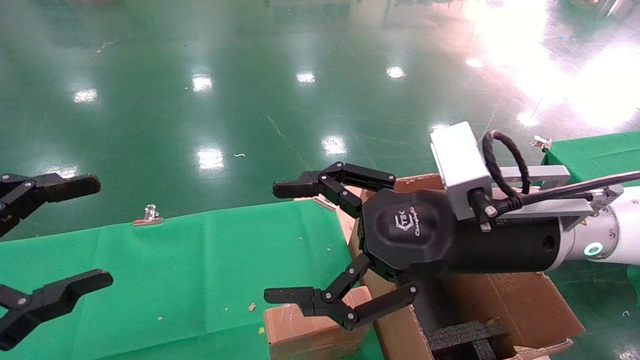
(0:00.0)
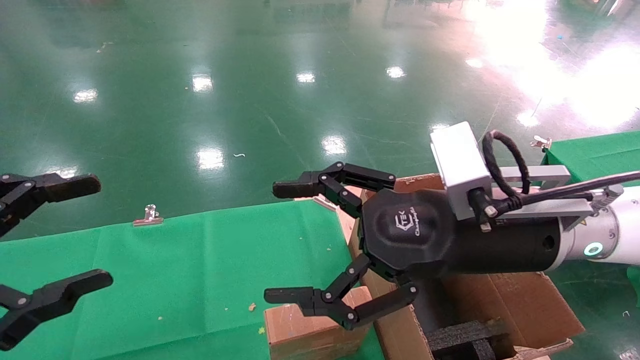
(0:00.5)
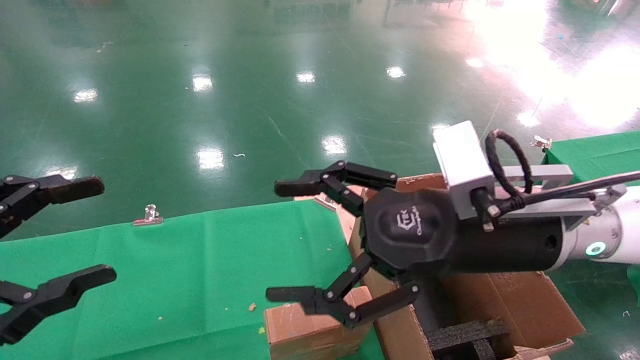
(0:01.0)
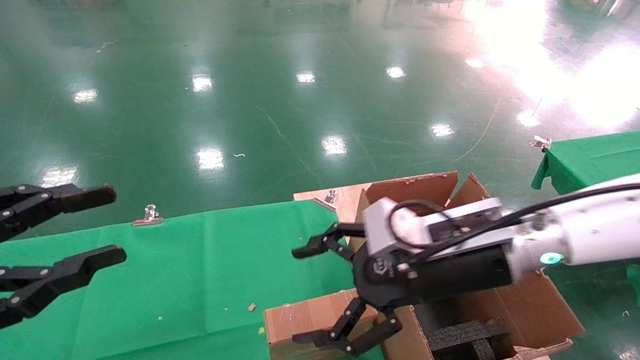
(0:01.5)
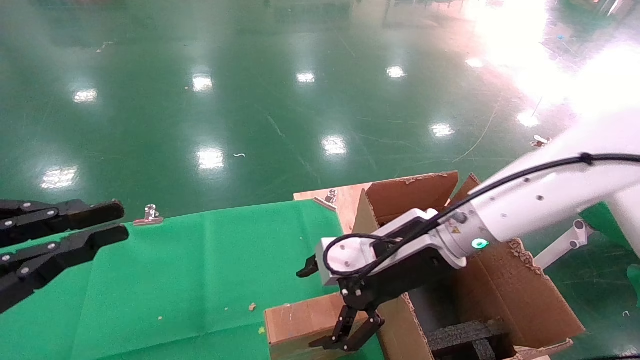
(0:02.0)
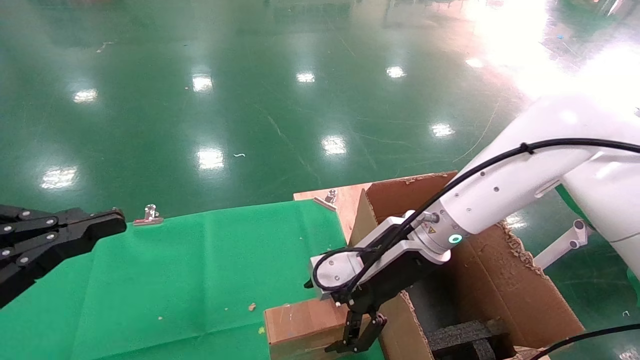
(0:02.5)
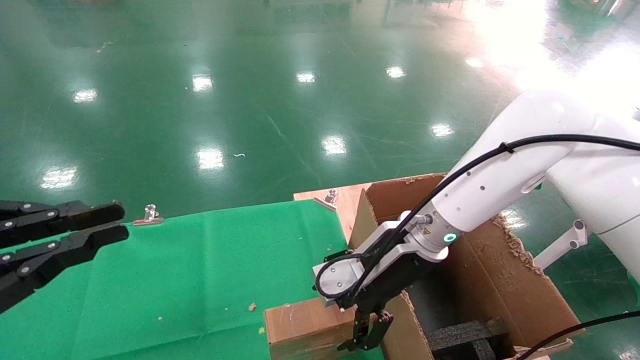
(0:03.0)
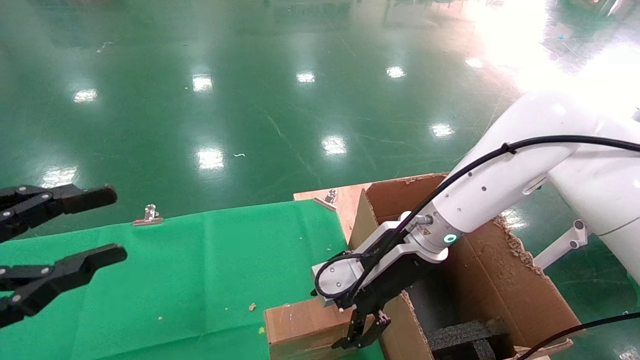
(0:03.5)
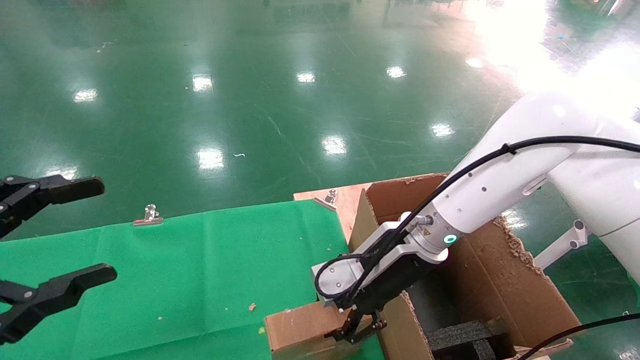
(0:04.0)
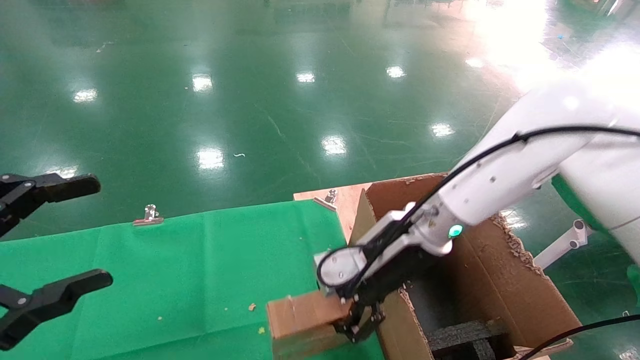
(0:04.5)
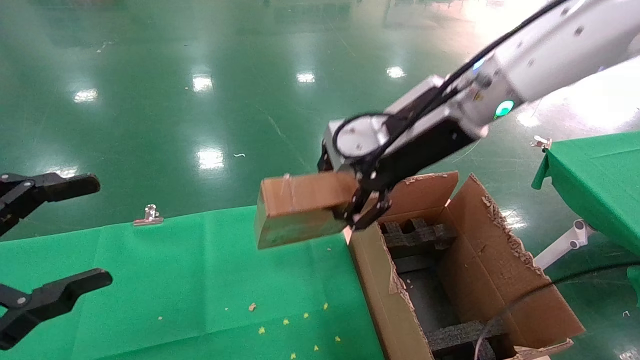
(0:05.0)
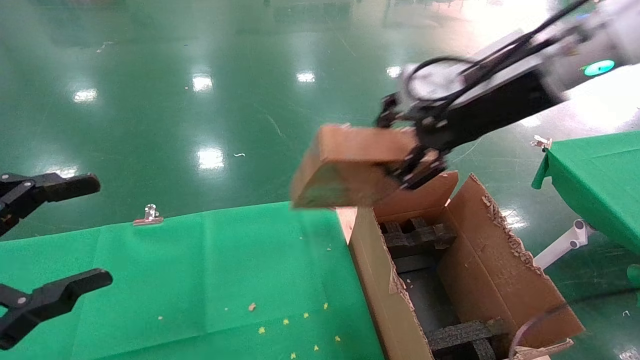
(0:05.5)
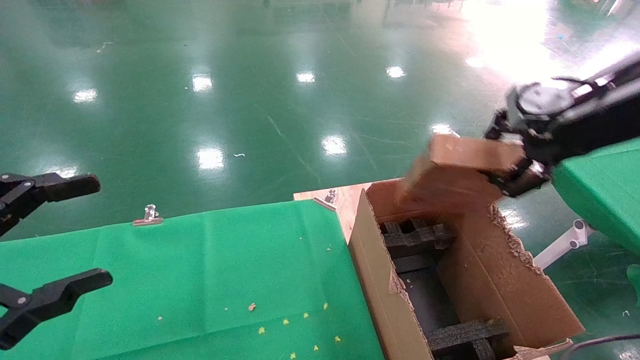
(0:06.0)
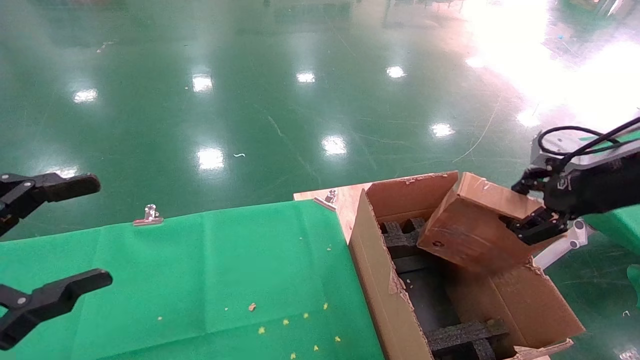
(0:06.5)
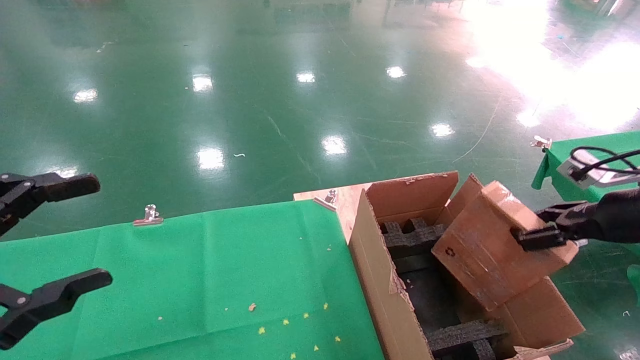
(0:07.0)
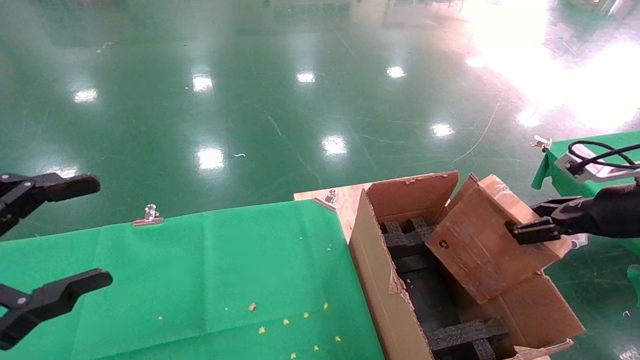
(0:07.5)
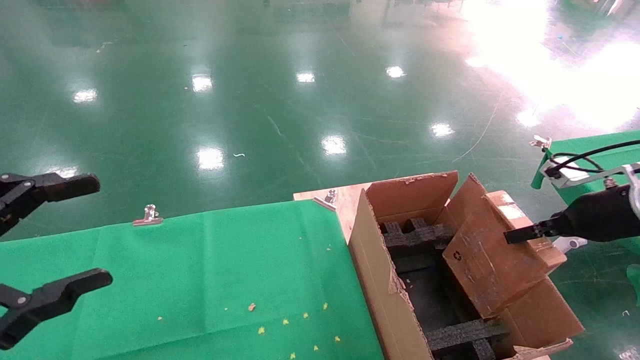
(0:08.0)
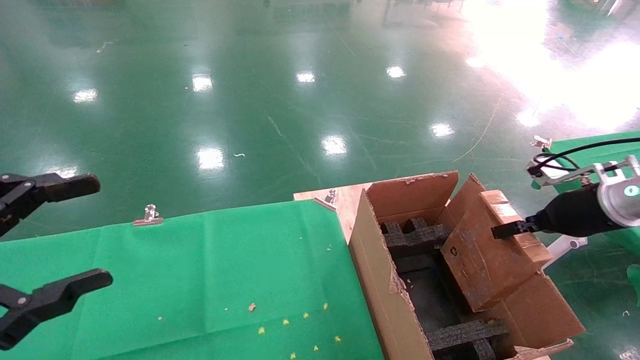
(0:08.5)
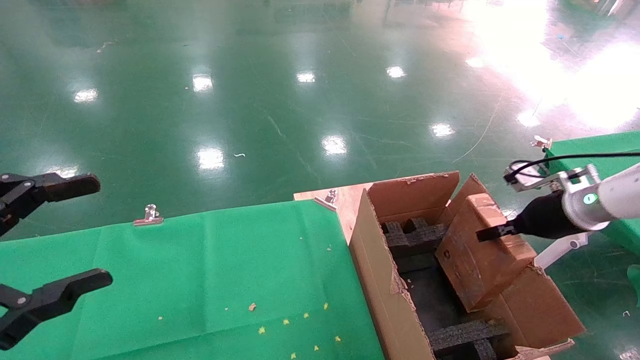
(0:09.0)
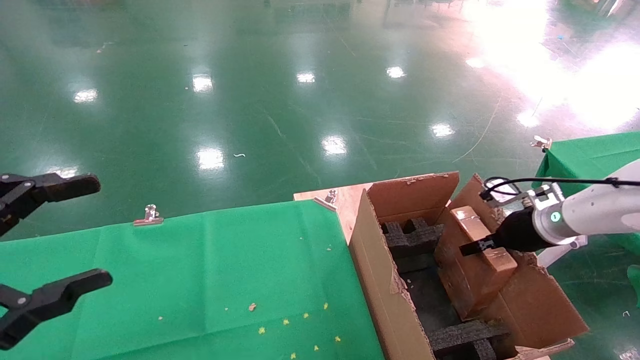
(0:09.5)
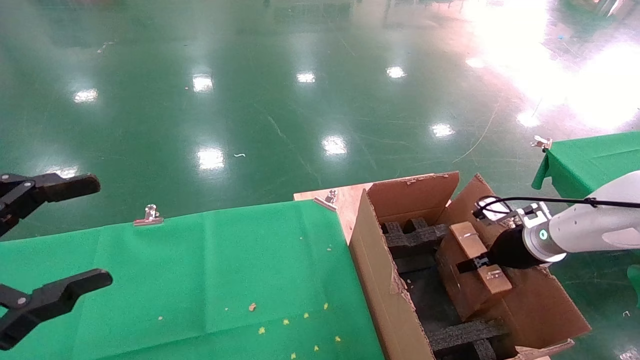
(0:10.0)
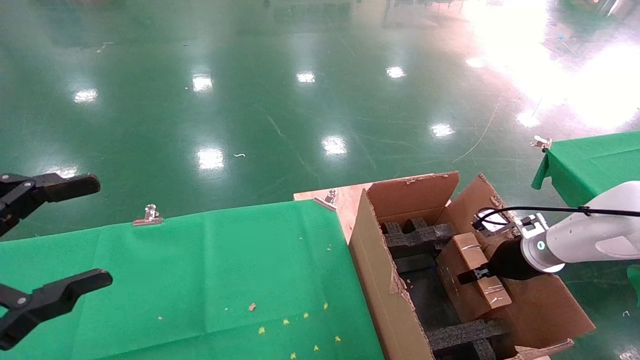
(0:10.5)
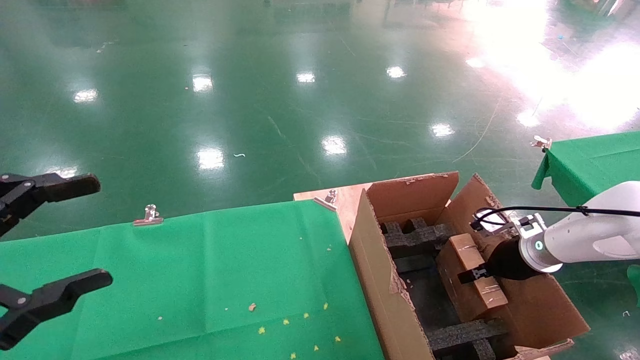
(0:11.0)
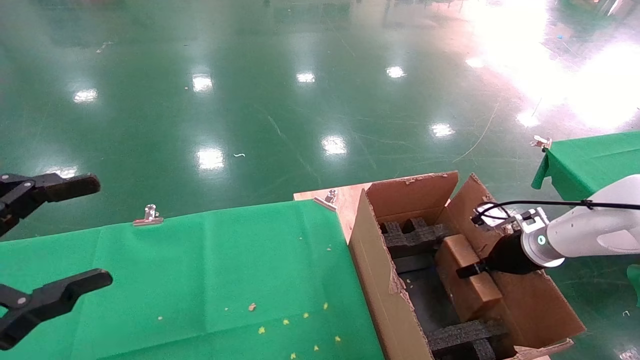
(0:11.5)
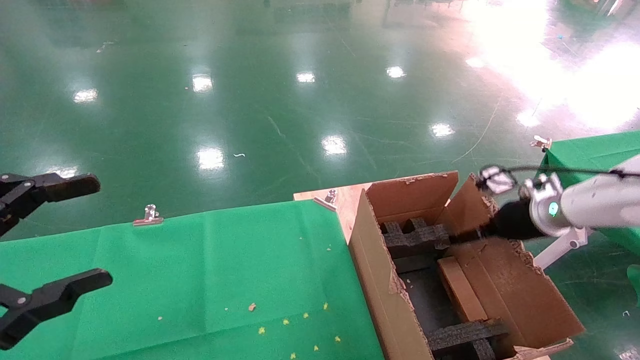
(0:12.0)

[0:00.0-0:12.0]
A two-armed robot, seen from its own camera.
Task of the whole recording: using a robotic arm to pick up a cardboard box and palace it the carton.
Step, 0:01.5 to 0:04.0: Pick up the mouse and the power cord paper box.
0:00.0 to 0:02.0: The left gripper closes up; the right gripper travels forward and downward by some 10 cm.
0:02.0 to 0:04.0: The left gripper opens up, while the right gripper closes its fingers.
0:04.0 to 0:06.0: The right gripper is displaced to the right and upward by about 30 cm, and closes.
0:06.0 to 0:08.0: The right gripper shifts roughly 20 cm downward and to the right.
0:08.0 to 0:10.0: The right gripper heads downward, forward and to the left, covering about 15 cm.
0:10.0 to 0:12.0: The right gripper shifts roughly 10 cm upward, and opens up.

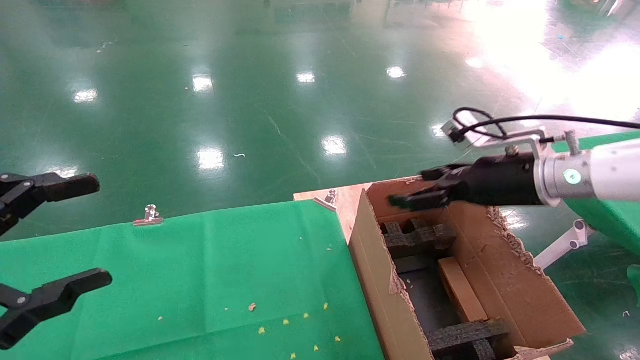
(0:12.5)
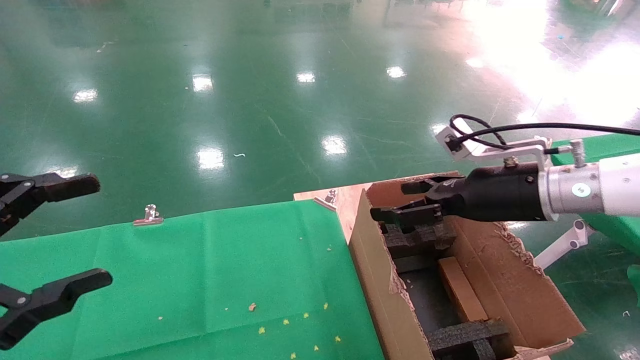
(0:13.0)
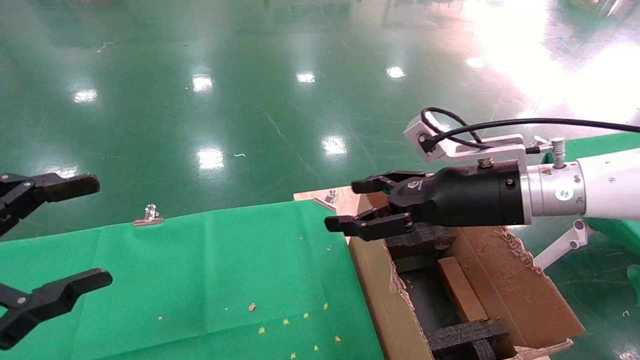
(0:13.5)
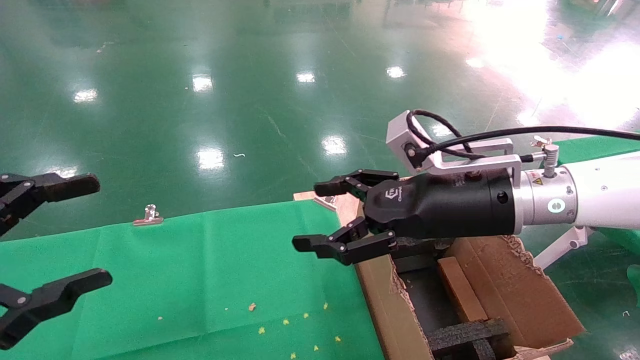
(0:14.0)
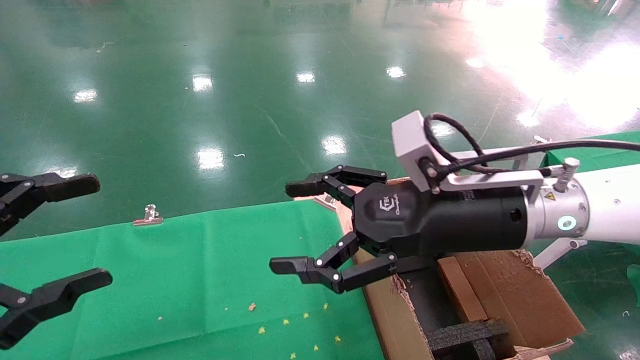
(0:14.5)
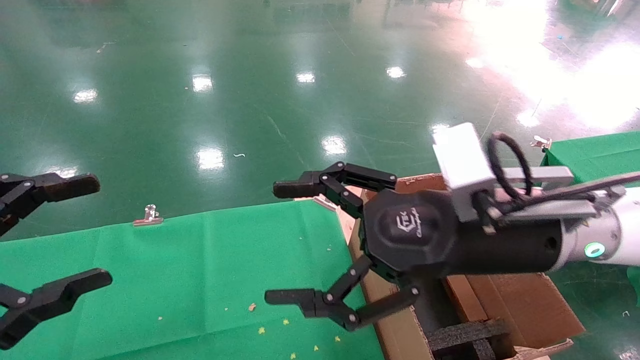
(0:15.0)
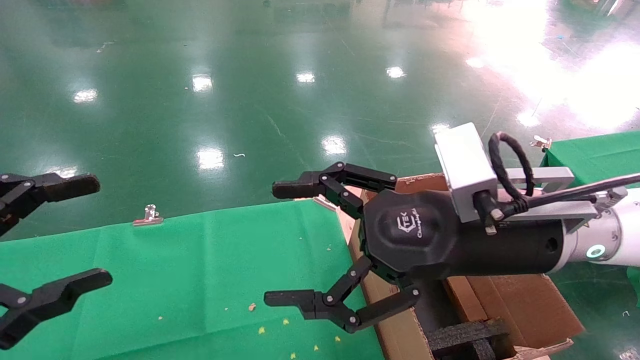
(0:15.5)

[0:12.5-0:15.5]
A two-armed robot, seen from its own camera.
Task of the whole recording: using a robotic arm to pick up a cardboard box and palace it the carton.
0:12.5 to 0:14.0: The right gripper is displaced to the left by about 10 cm.
0:14.0 to 0:15.5: The right gripper heads backward, covering approximately 5 cm.

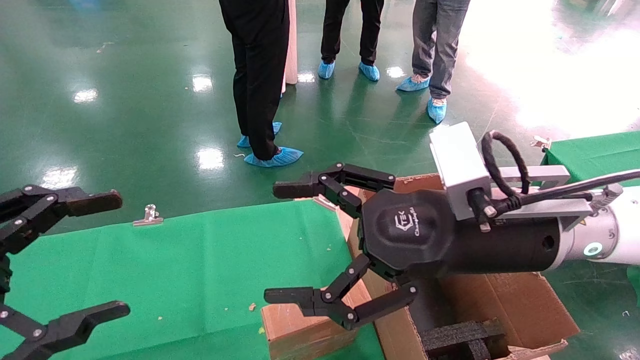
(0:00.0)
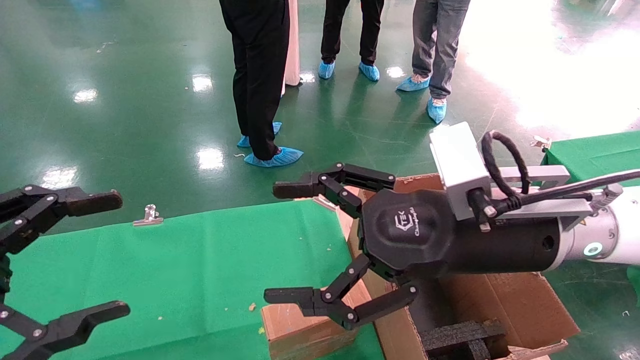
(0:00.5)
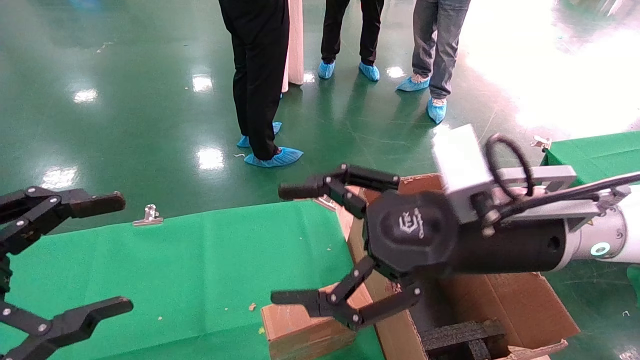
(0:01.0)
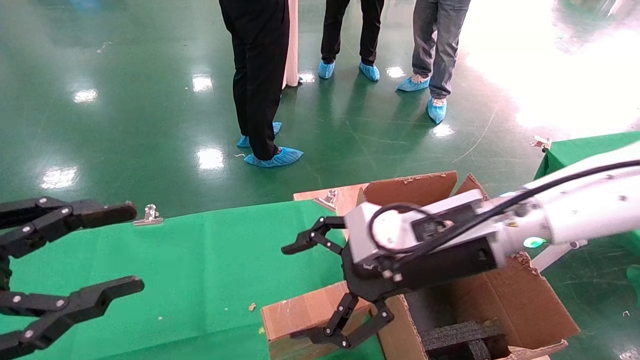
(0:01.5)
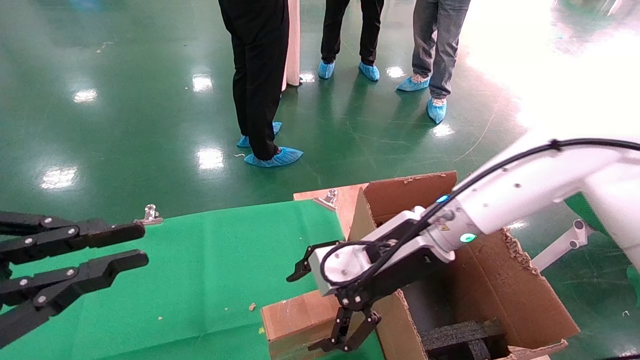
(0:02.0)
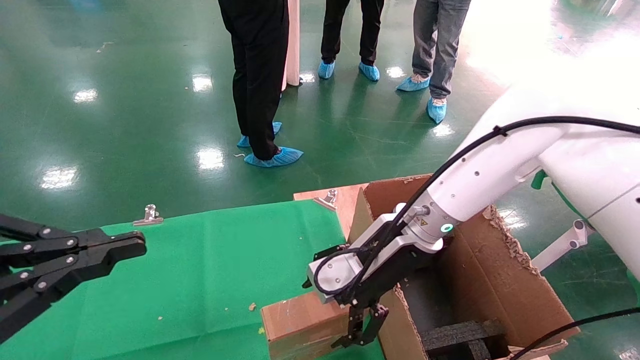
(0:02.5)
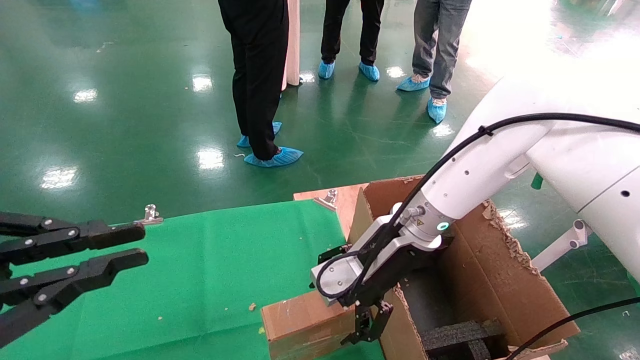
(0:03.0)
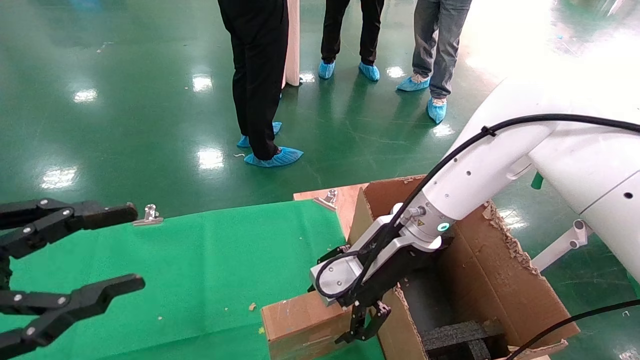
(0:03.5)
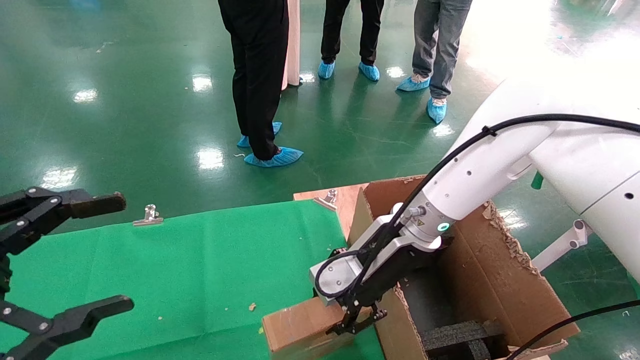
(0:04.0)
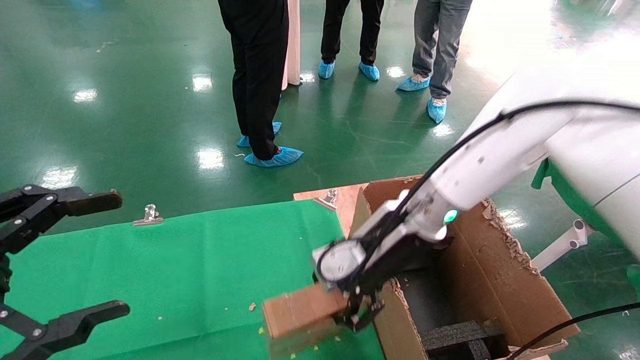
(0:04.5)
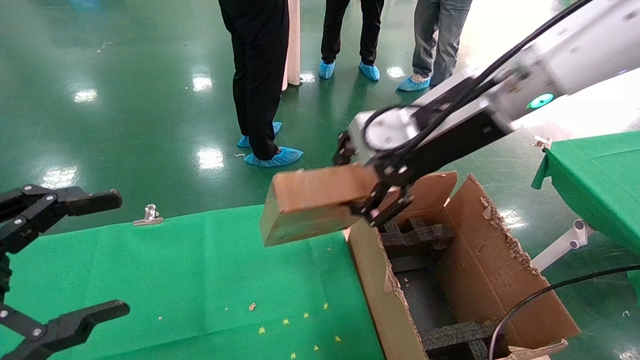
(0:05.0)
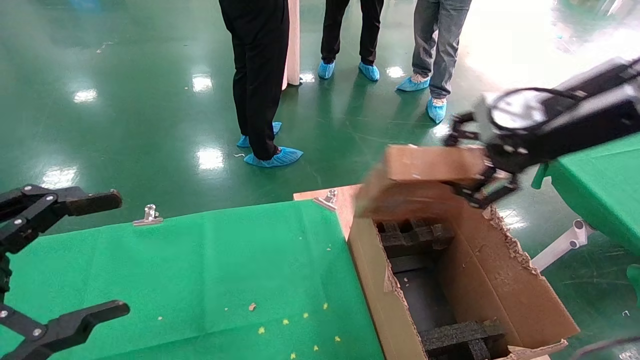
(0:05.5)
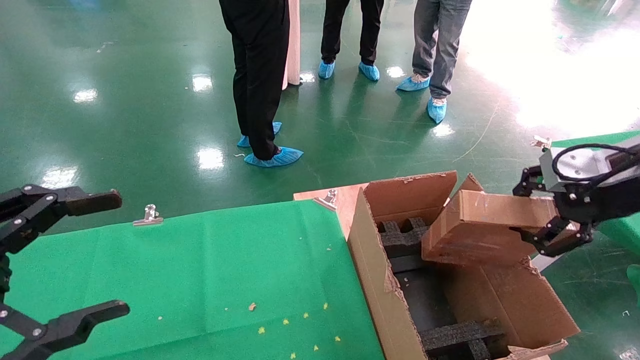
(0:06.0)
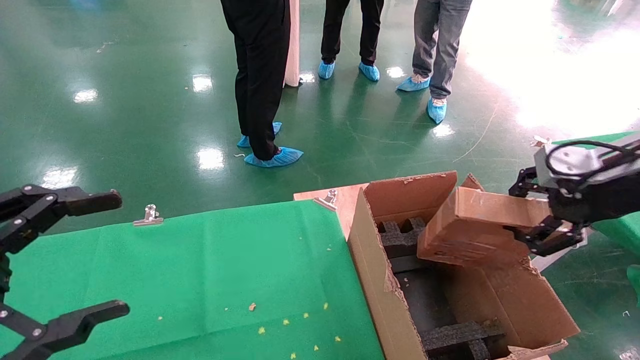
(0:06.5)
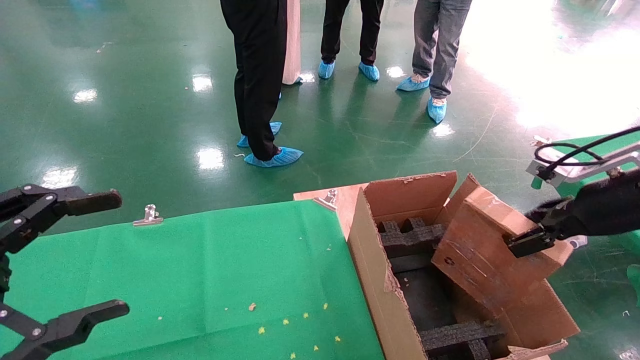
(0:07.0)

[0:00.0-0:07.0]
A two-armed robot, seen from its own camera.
Task of the whole recording: using a robotic arm to pick up a cardboard box and palace it the carton.
Step, 0:01.0 to 0:04.0: Pick up the mouse and the power cord paper box.
0:00.0 to 0:02.0: The right gripper heads forward and downward, covering about 10 cm. Meanwhile the left gripper closes up.
0:02.0 to 0:03.5: There are only small adjustments of the grippers.
0:03.5 to 0:05.0: The left gripper opens. Meanwhile the right gripper heads upward, covering some 15 cm, and closes up.
0:05.0 to 0:07.0: The right gripper is displaced to the right and downward by approximately 25 cm.
